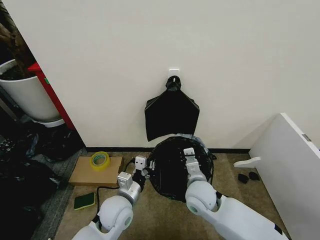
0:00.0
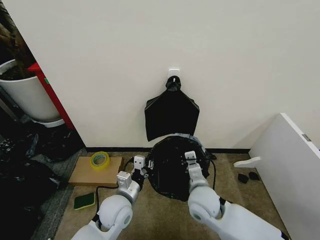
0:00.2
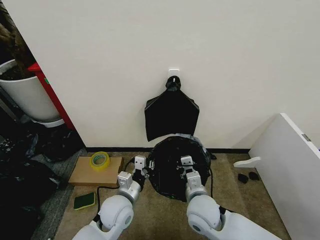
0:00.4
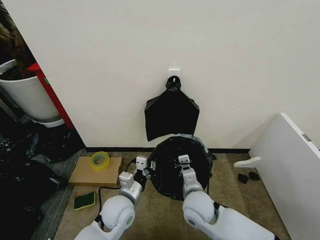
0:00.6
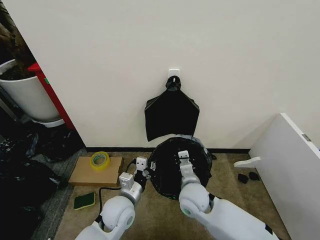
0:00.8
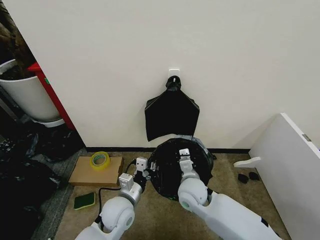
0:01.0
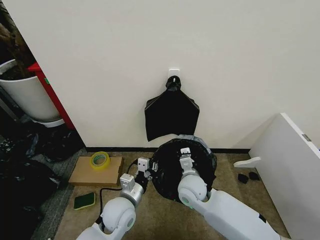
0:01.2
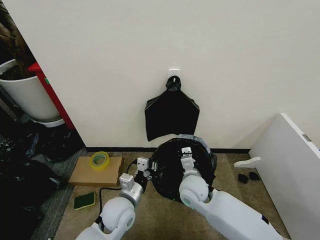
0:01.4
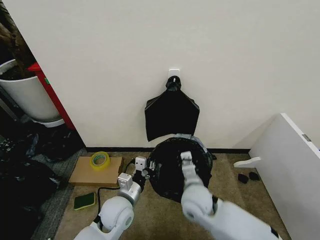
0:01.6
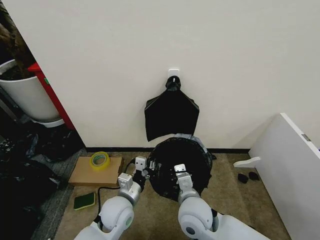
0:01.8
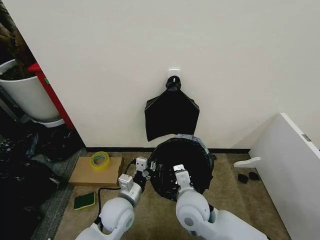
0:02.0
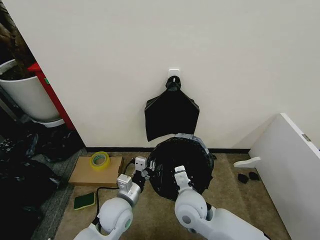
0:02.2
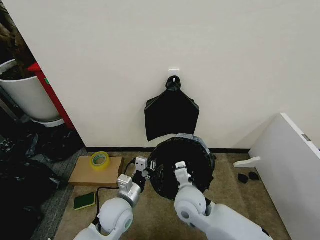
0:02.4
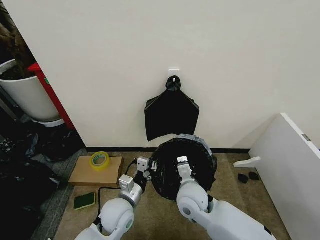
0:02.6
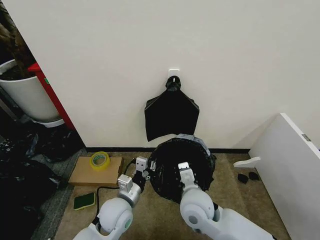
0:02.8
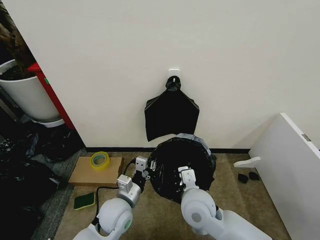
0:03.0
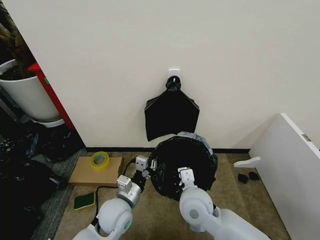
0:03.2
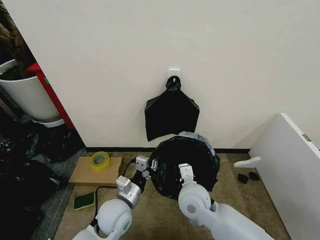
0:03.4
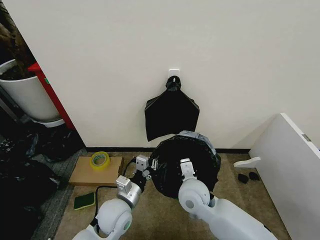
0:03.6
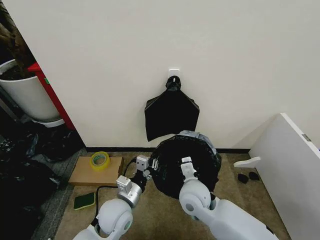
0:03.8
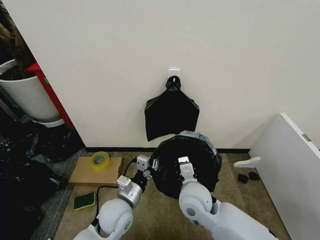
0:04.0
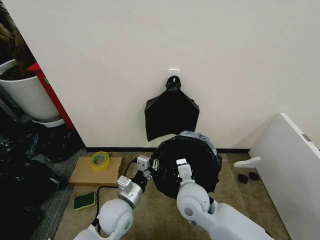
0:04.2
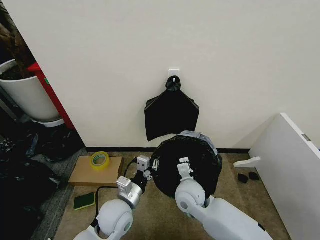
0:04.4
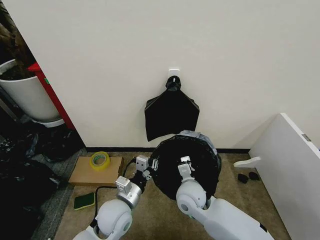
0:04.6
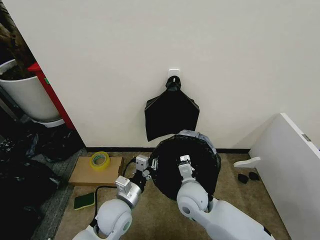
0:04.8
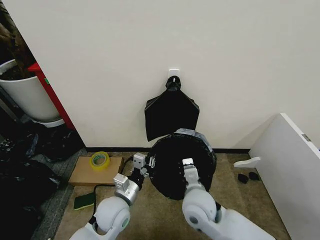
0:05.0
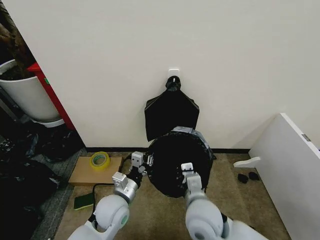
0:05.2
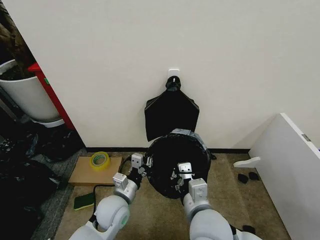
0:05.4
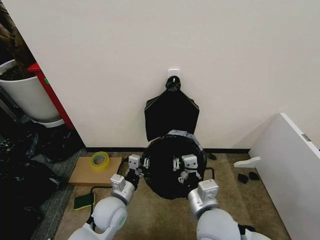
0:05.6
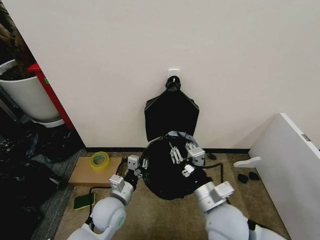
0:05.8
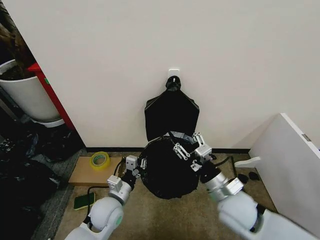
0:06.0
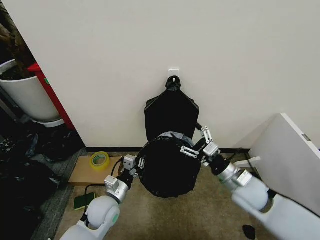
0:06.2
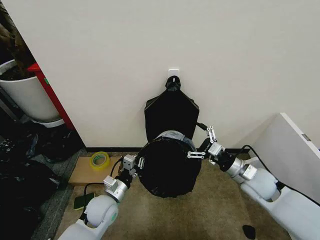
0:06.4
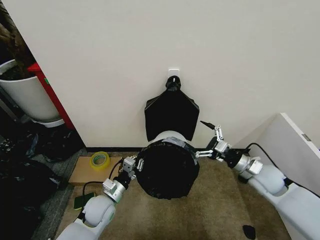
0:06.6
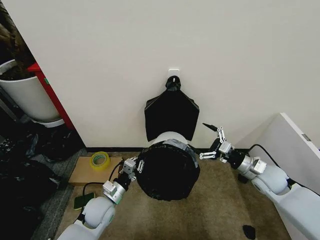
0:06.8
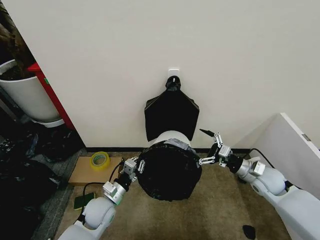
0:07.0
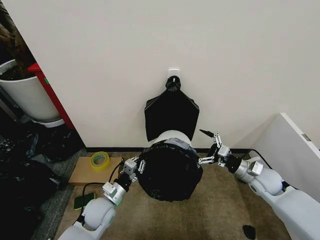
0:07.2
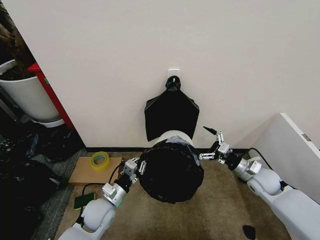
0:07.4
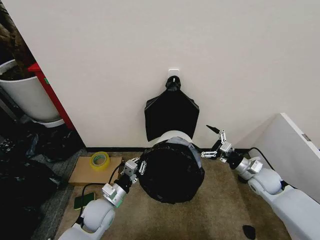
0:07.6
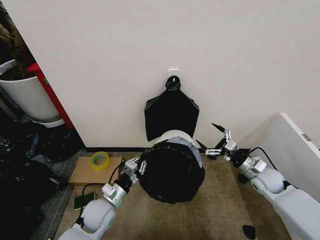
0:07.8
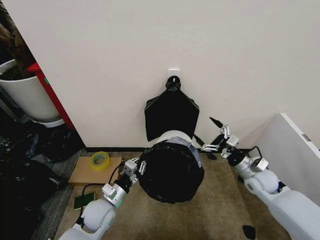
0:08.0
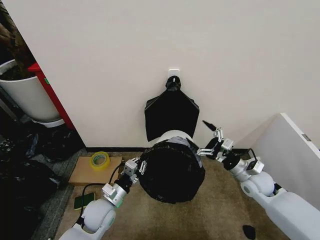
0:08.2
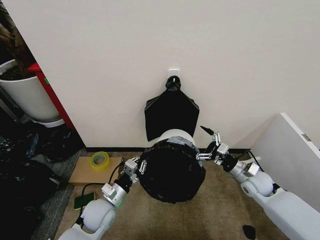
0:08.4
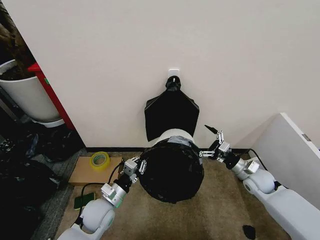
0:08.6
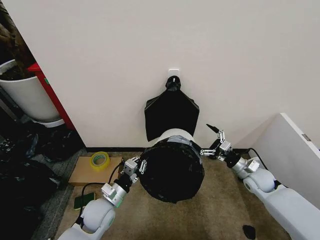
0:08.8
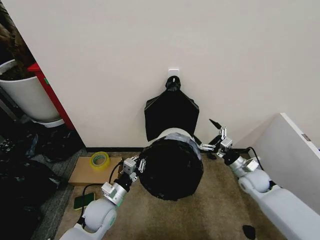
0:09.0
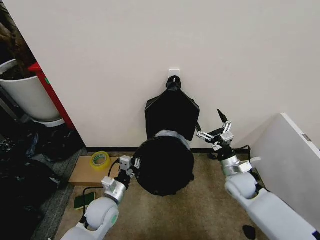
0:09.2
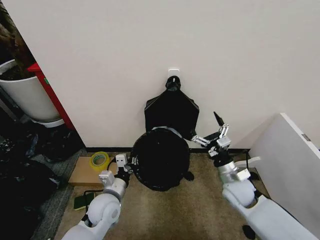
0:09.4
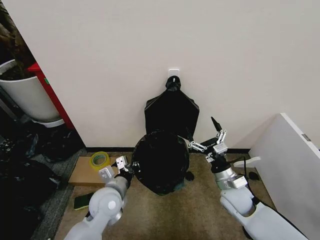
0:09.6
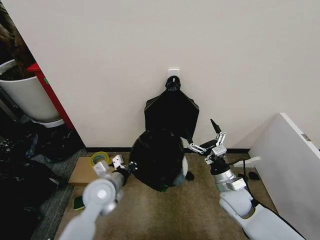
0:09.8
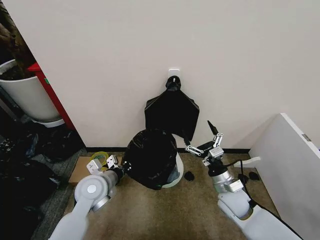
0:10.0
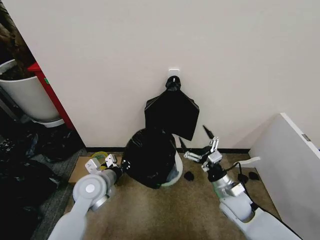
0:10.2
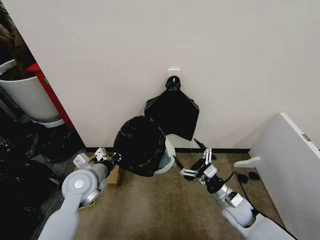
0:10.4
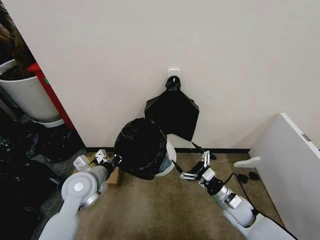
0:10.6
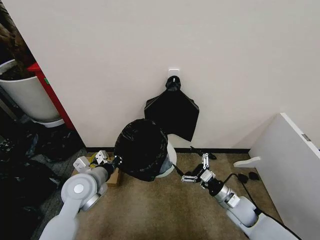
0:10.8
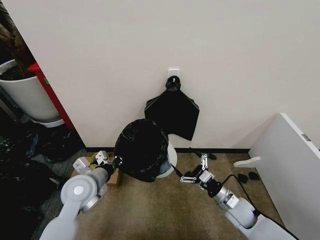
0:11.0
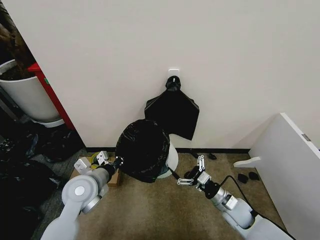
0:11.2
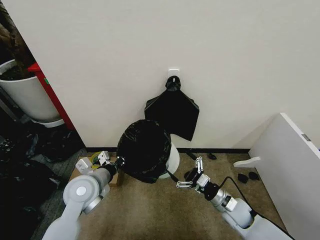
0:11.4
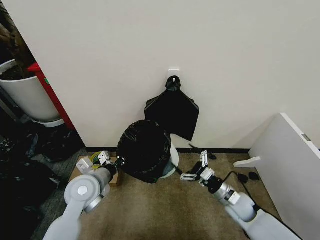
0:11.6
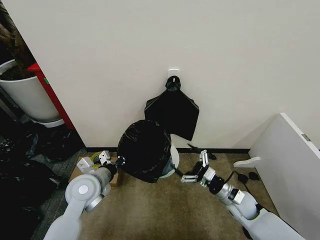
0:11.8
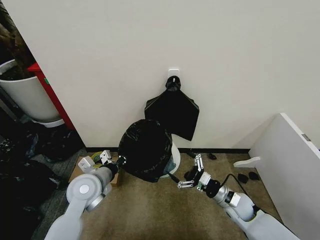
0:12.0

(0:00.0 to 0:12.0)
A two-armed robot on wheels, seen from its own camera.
Task of the whole recording: Place the garbage bag over the trash bin.
0:00.0 - 0:01.6: The right gripper goes forward and backward, some 5 cm each way, reversing 2 times.
0:01.6 - 0:03.0: The right gripper moves about 5 cm.
0:03.0 - 0:04.4: The right gripper shifts by some 5 cm.
0:04.4 - 0:06.0: The right gripper travels to the right and backward by about 10 cm, and opens its fingers.
0:06.0 - 0:07.6: The right gripper is displaced to the right, forward and downward by some 25 cm, and opens.
0:07.6 - 0:09.0: The grippers make only small movements.
0:09.0 - 0:10.4: The right gripper travels backward and to the left by some 15 cm. The left gripper shifts approximately 10 cm upward.
0:10.4 - 0:12.0: The grippers stay close to where they were, moving slightly.

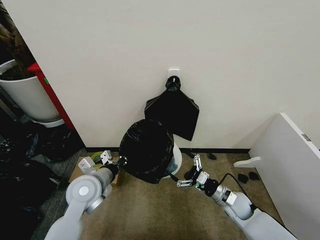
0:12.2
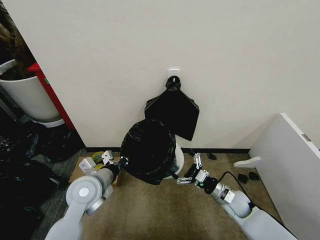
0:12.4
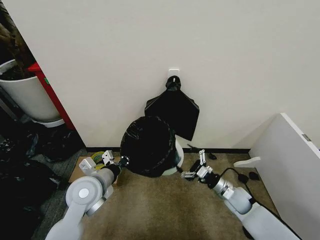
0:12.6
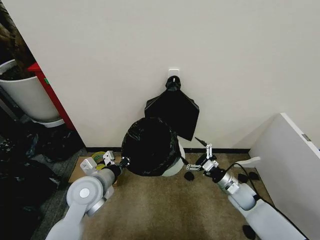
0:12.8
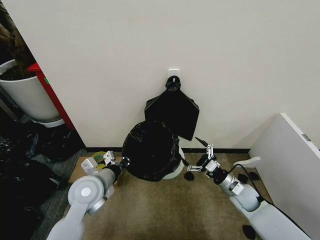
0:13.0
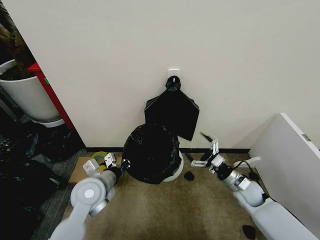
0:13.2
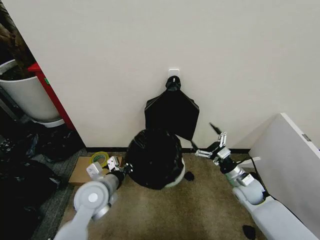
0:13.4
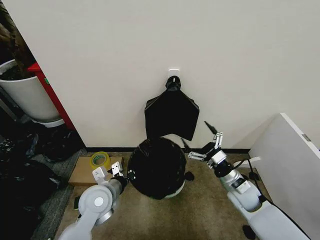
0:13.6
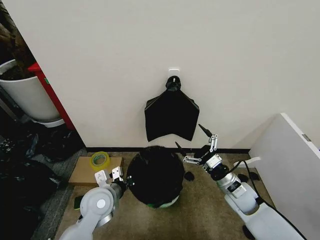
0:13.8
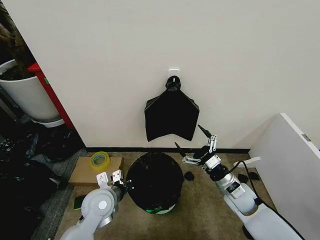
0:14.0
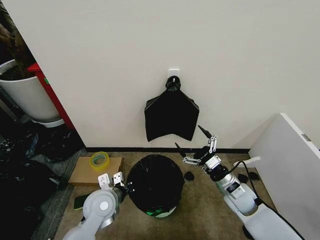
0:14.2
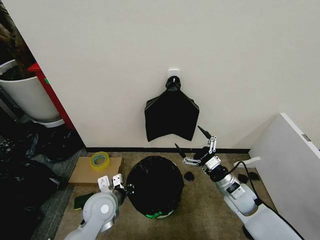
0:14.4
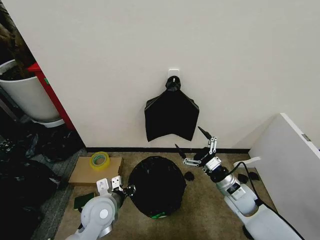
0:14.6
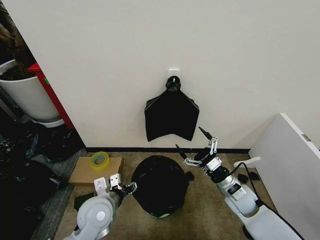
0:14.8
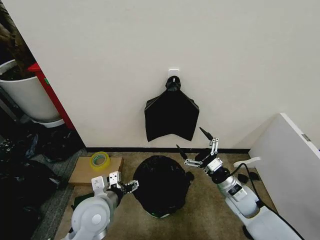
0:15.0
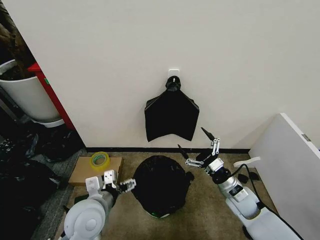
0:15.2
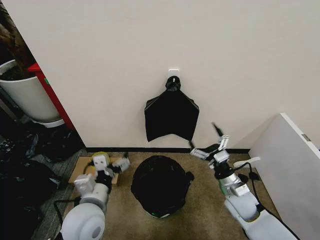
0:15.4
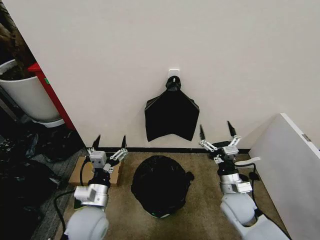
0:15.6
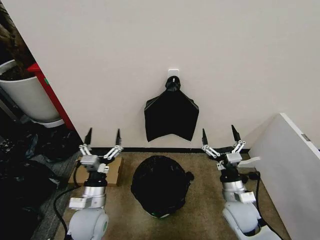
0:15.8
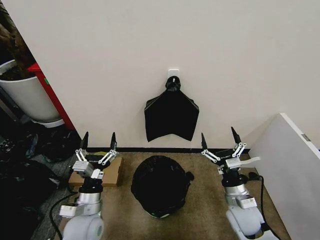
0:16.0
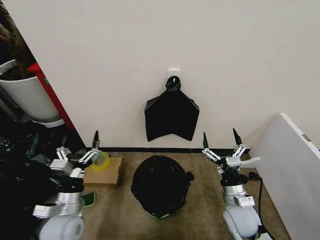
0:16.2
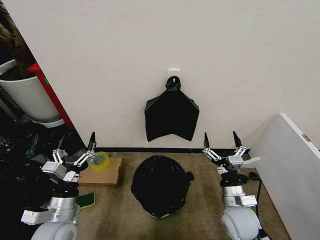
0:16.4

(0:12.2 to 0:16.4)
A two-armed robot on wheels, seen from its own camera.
Task of the whole recording: Place the garbage bag over the trash bin.
0:12.2 - 0:13.6: The right gripper is displaced upward by approximately 5 cm.
0:13.6 - 0:15.0: The left gripper moves roughly 5 cm, and opens up.
0:15.0 - 0:16.4: The left gripper is displaced to the left by roughly 10 cm. Meanwhile the right gripper goes about 5 cm backward.
